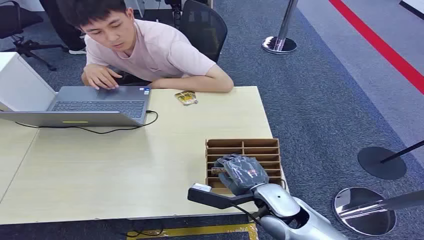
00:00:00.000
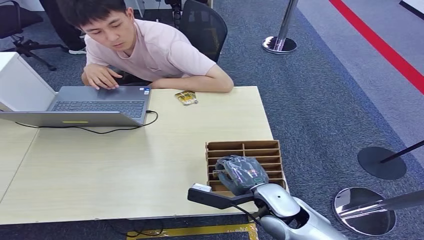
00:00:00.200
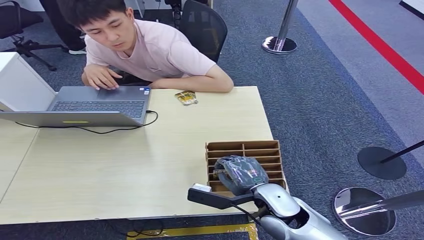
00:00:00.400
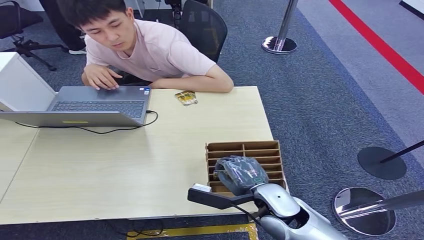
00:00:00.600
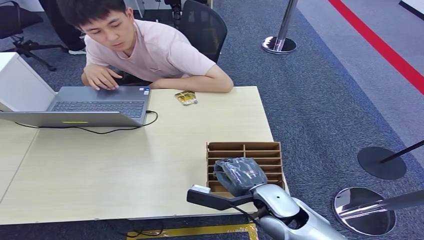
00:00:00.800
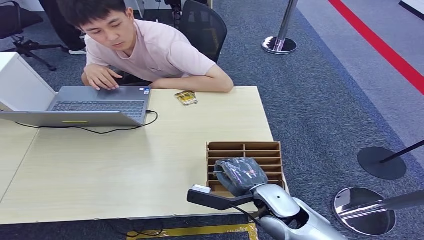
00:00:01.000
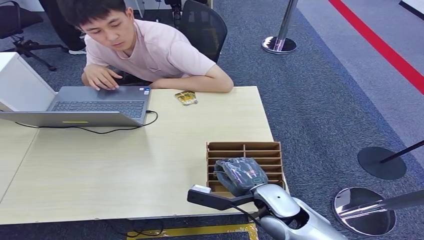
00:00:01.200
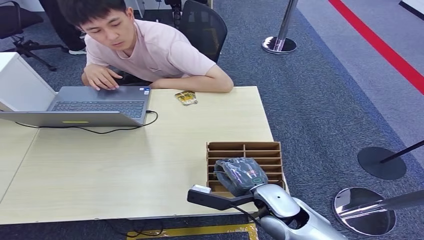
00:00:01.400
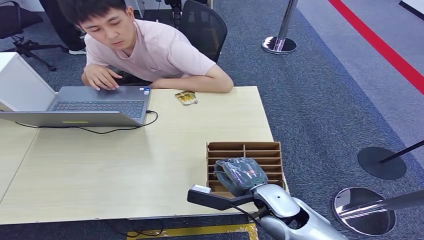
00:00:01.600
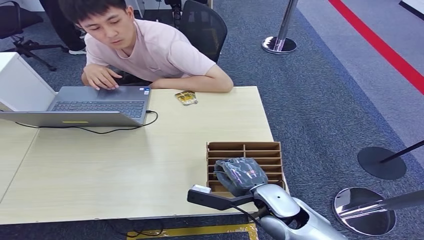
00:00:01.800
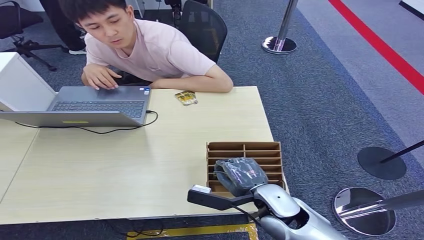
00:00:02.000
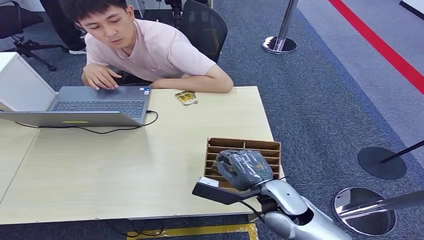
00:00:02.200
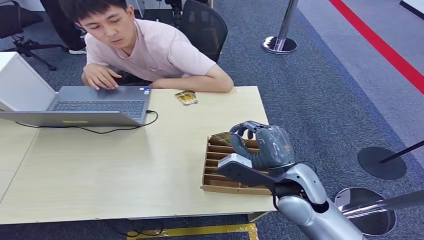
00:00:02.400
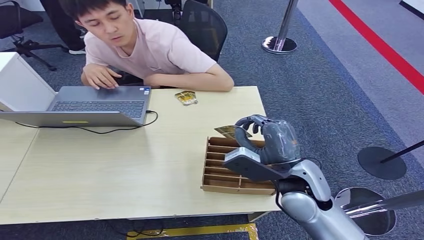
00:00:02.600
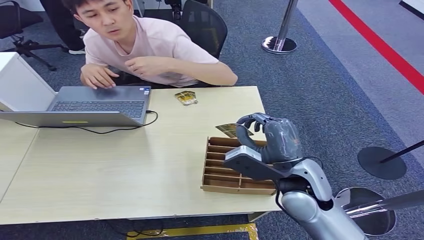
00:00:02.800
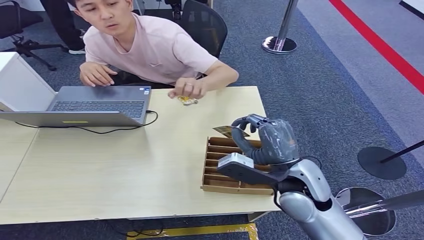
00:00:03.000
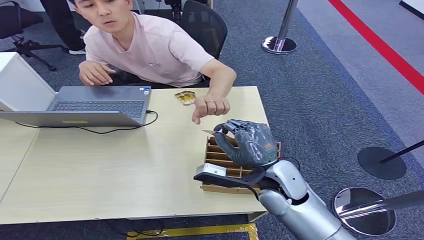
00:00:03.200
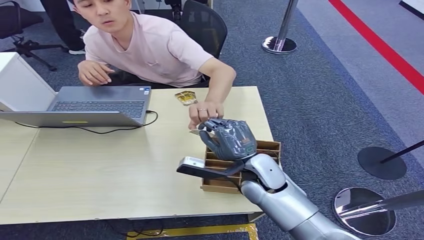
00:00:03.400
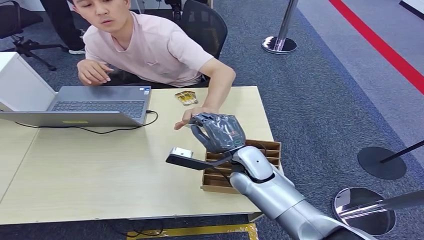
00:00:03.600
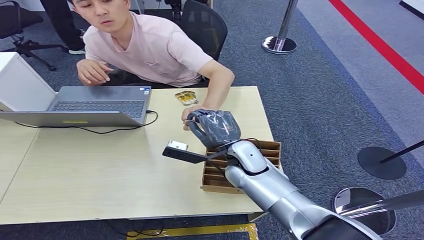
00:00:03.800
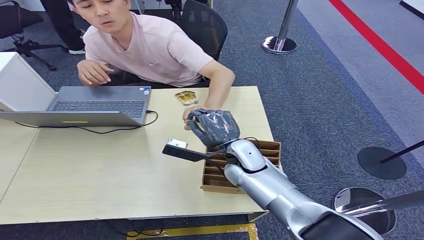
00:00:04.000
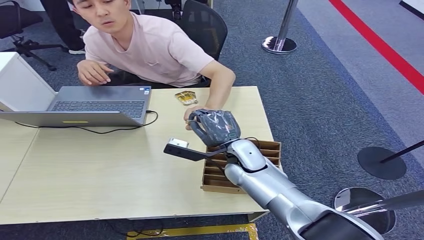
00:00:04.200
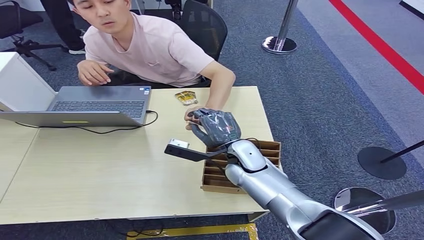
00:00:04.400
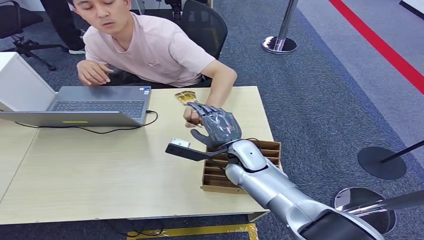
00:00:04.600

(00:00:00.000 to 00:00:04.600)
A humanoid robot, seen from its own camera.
Step, 00:00:00.000 - 00:00:02.400: Pick up the key card from the card box.
Step, 00:00:02.600 - 00:00:04.600: Hand the key card to the target.
00:00:01.600 - 00:00:03.000: The right hand is displaced upward by some 10 cm.
00:00:03.000 - 00:00:04.600: The right hand is displaced forward, to the left and downward by some 15 cm.
